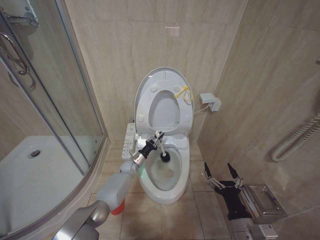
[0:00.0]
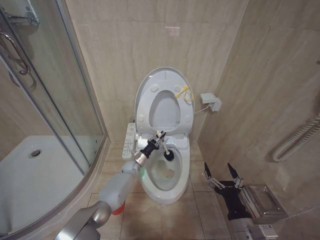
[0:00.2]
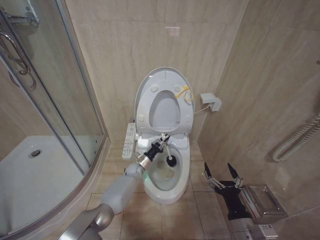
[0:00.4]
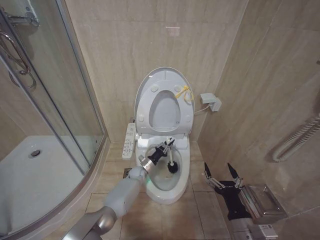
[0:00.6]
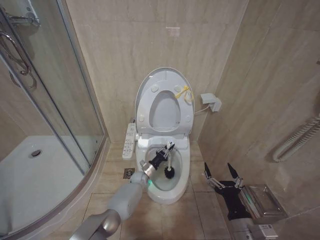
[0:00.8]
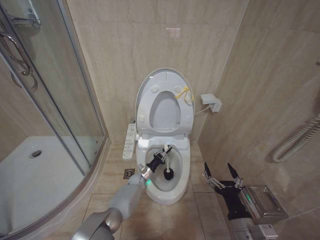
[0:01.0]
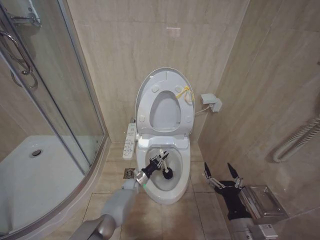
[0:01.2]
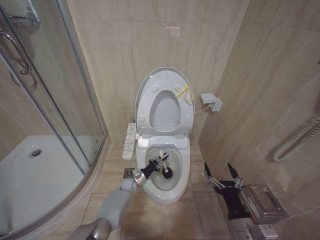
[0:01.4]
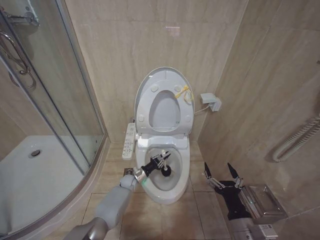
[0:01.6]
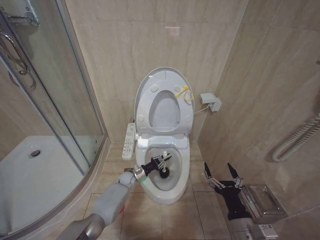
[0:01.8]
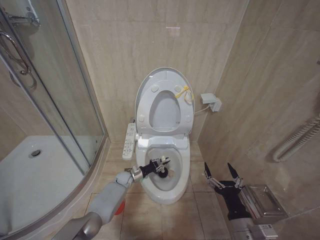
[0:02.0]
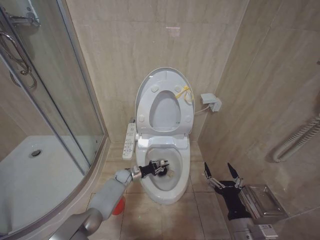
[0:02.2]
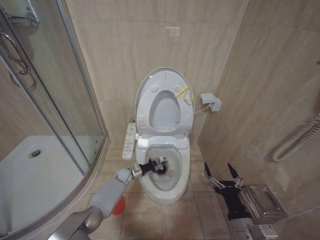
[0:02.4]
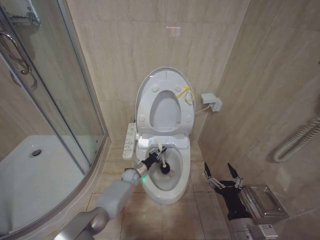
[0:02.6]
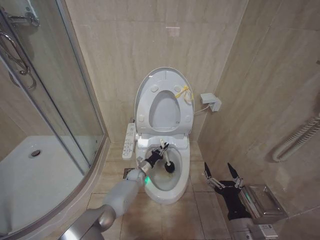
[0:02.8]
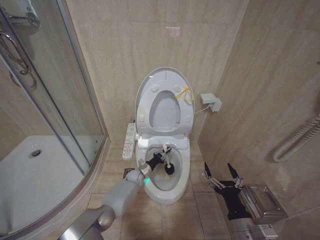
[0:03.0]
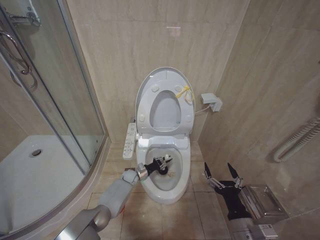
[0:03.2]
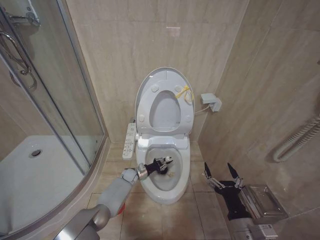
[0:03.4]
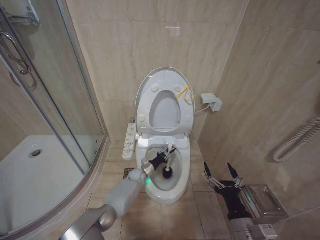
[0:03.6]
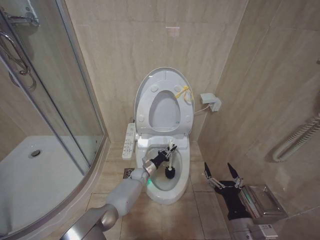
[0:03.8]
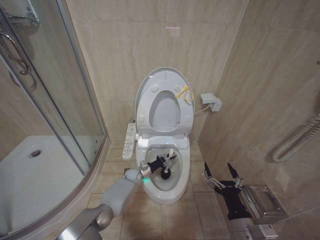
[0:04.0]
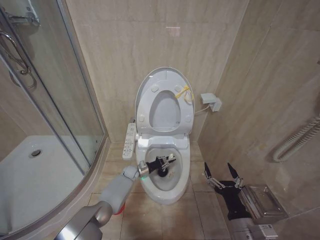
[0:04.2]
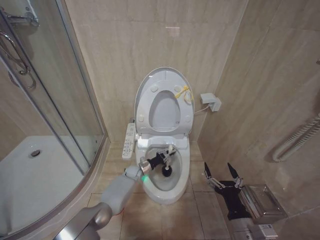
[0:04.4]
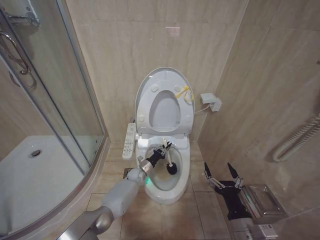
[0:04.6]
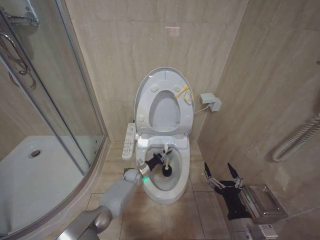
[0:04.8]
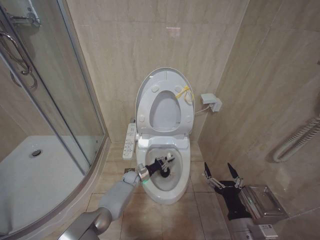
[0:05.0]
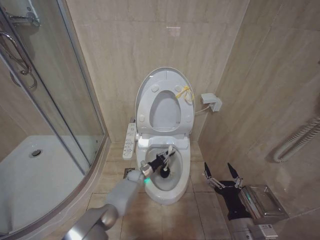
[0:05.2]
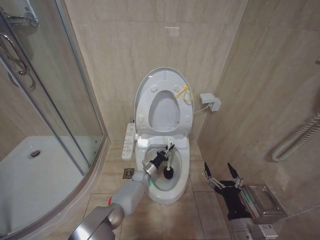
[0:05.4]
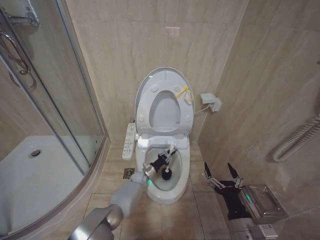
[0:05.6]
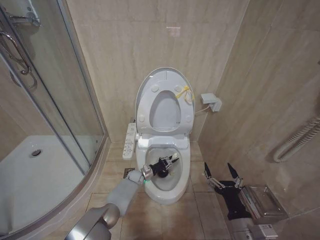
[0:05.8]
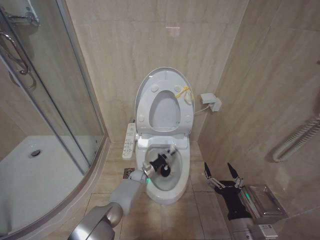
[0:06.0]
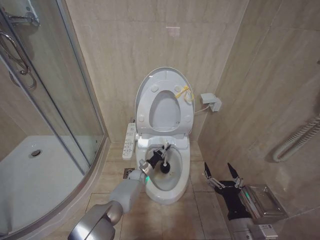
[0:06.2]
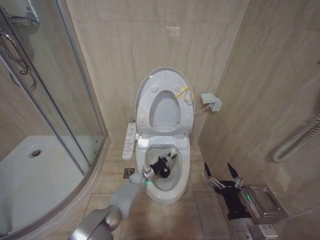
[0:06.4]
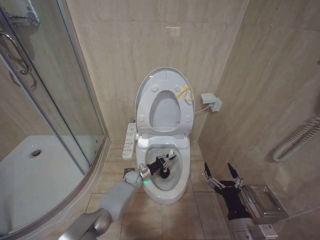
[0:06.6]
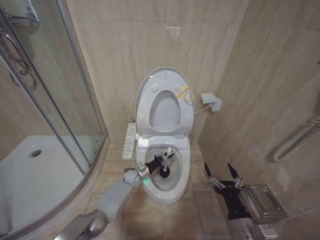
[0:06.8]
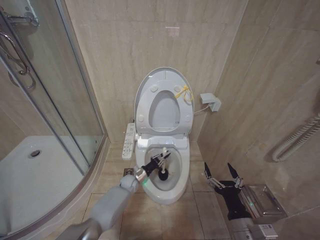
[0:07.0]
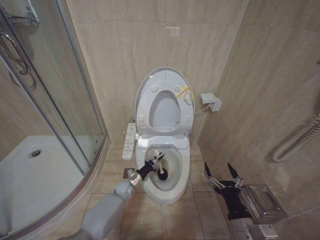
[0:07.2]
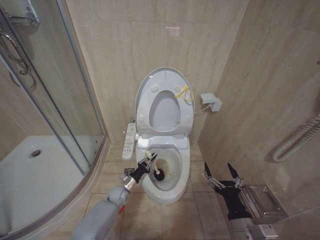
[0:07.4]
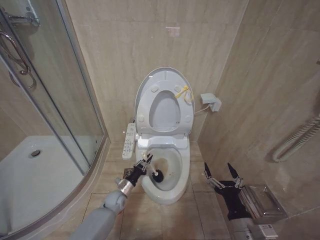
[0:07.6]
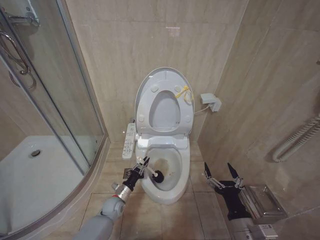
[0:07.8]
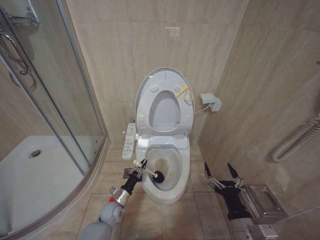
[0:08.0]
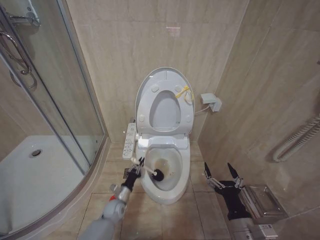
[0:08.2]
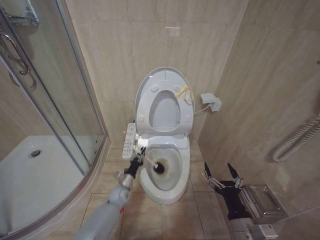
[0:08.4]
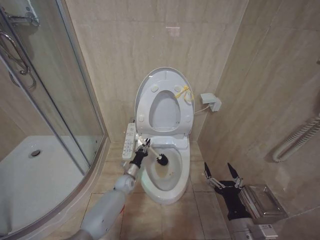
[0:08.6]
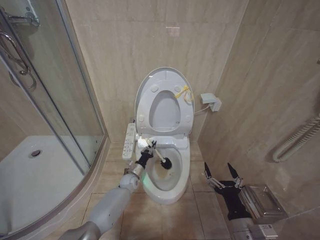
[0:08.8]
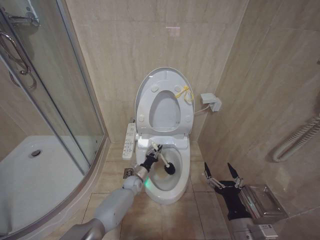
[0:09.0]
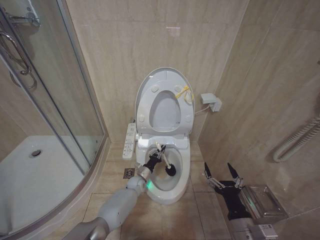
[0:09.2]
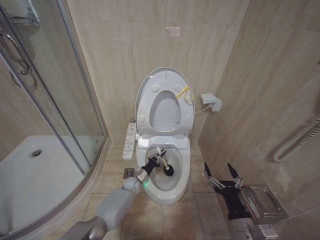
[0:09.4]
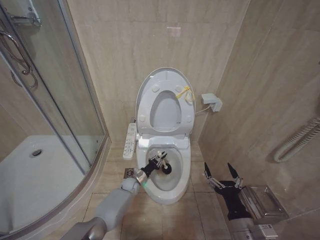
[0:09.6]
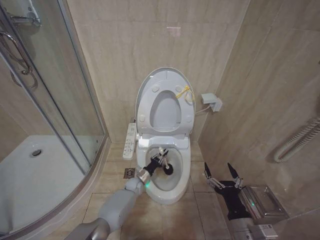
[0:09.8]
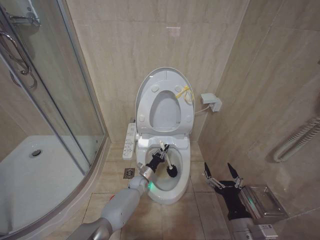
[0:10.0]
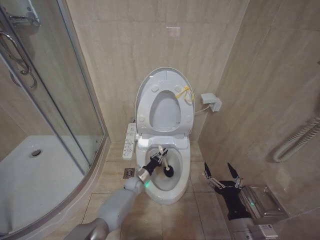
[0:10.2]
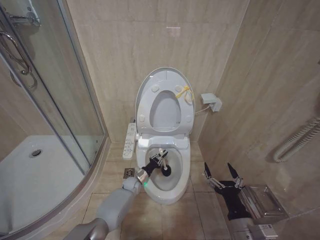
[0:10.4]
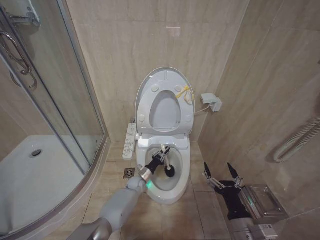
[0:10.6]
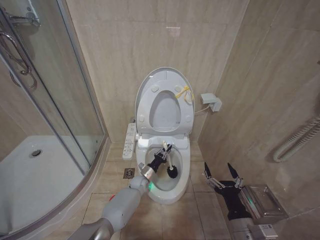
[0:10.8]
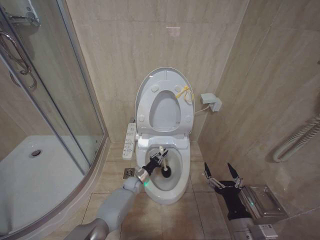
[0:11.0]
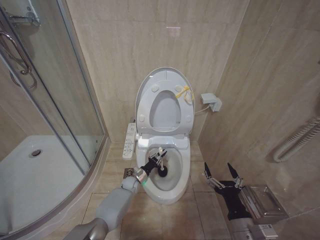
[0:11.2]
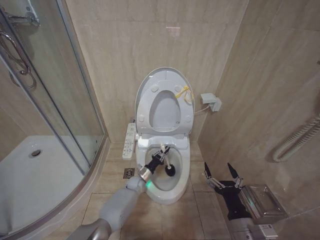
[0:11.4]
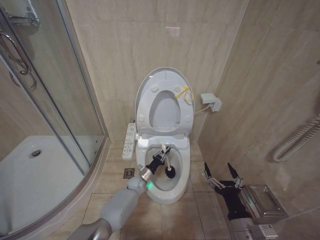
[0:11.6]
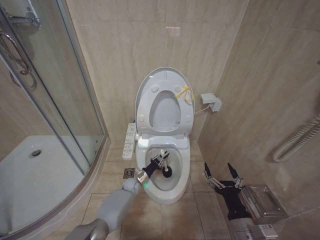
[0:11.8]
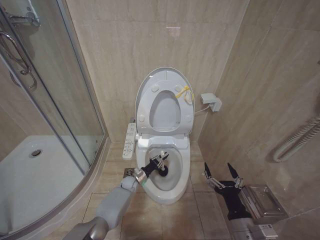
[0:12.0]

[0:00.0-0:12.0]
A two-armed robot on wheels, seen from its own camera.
Task of the whole recording: Open the toilet lid, clean the toilet bowl with a toilet brush, close the toilet lid, and flush.
0:00.0 to 0:01.6: The left gripper shifts roughly 5 cm downward.
0:01.6 to 0:03.0: The left gripper moves approximately 5 cm.
0:03.0 to 0:04.4: The left gripper swings left and right, some 5 cm each way, with 2 reversals.
0:06.0 to 0:07.6: The left gripper shifts about 15 cm backward and to the left.
0:07.6 to 0:09.0: The left gripper moves to the right and forward, roughly 10 cm.

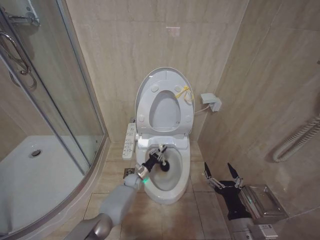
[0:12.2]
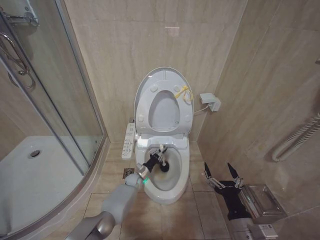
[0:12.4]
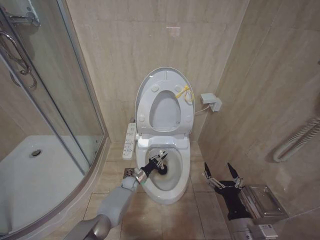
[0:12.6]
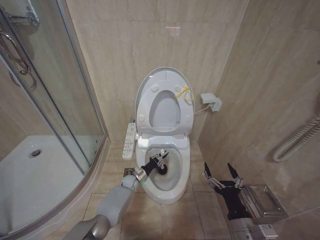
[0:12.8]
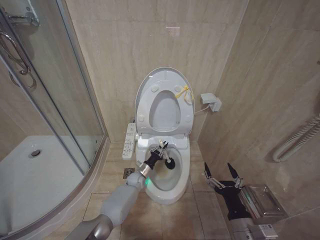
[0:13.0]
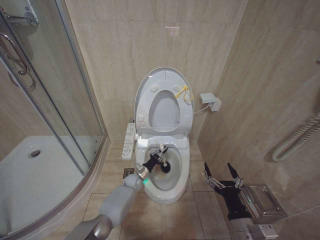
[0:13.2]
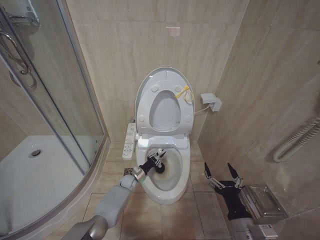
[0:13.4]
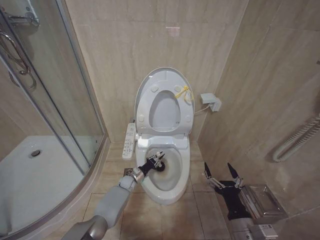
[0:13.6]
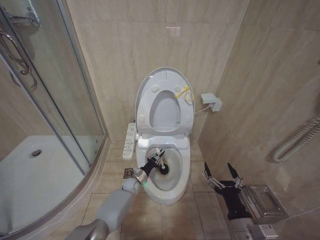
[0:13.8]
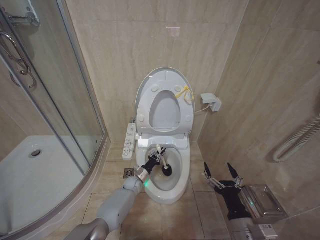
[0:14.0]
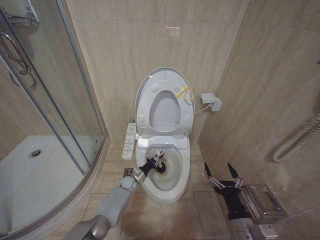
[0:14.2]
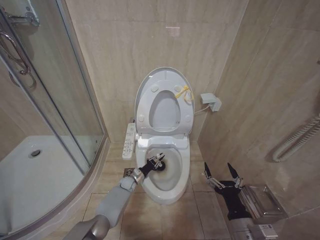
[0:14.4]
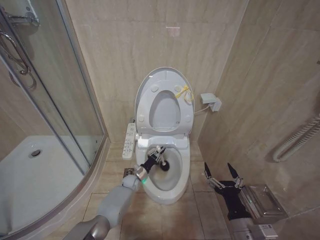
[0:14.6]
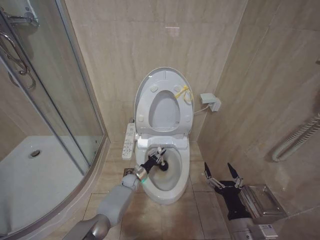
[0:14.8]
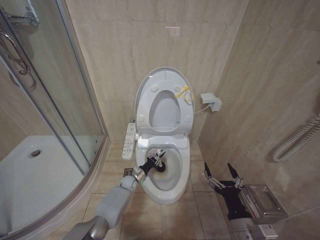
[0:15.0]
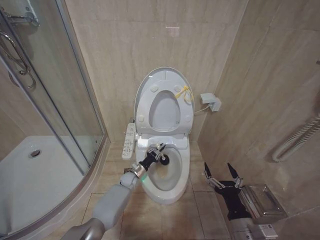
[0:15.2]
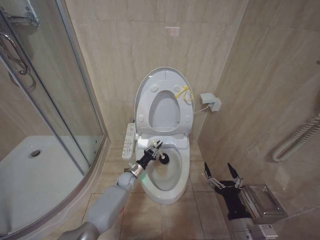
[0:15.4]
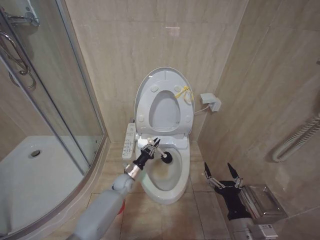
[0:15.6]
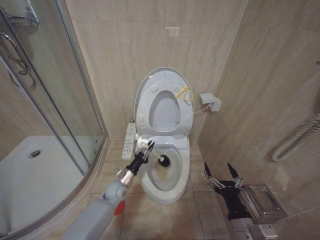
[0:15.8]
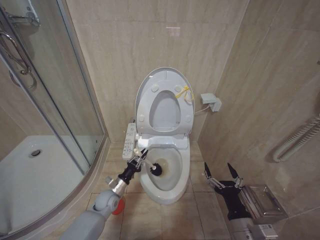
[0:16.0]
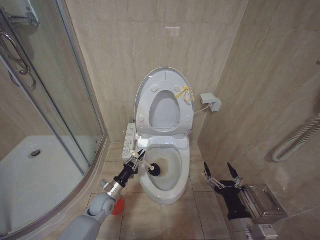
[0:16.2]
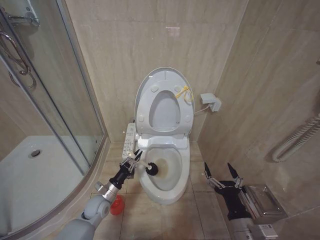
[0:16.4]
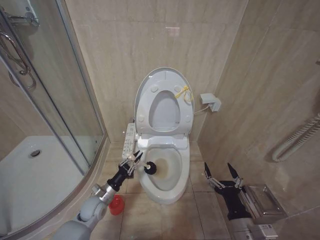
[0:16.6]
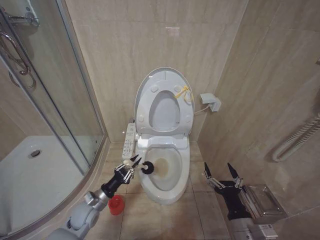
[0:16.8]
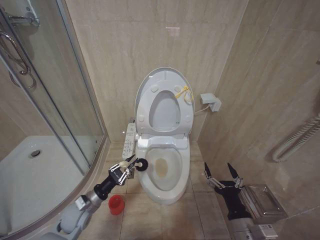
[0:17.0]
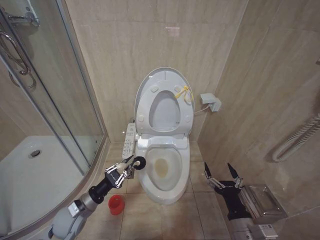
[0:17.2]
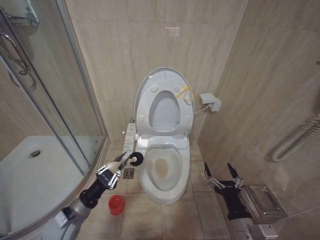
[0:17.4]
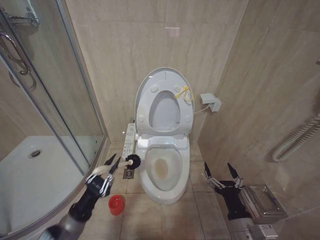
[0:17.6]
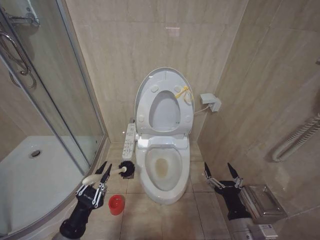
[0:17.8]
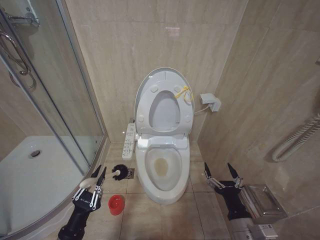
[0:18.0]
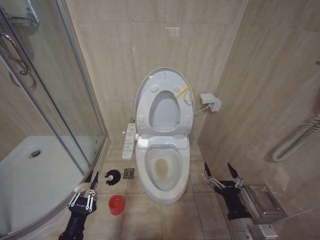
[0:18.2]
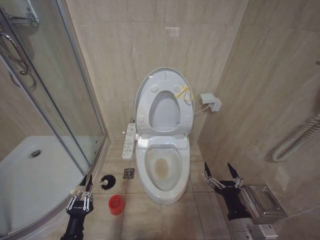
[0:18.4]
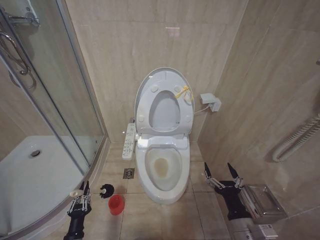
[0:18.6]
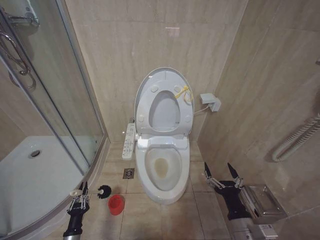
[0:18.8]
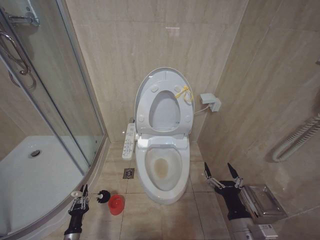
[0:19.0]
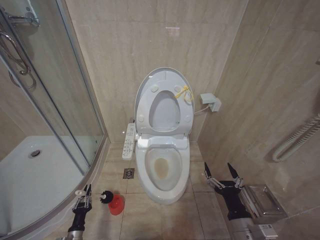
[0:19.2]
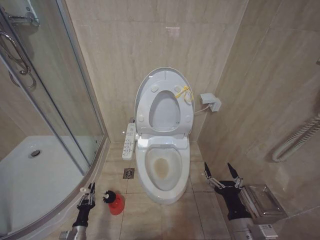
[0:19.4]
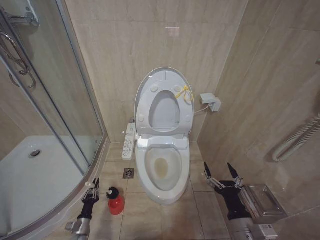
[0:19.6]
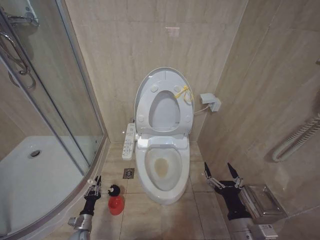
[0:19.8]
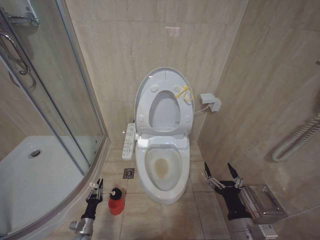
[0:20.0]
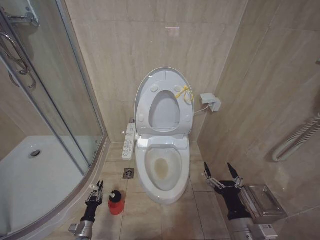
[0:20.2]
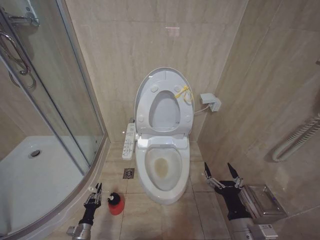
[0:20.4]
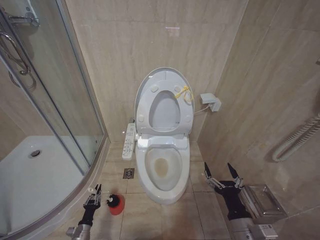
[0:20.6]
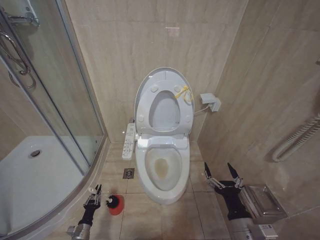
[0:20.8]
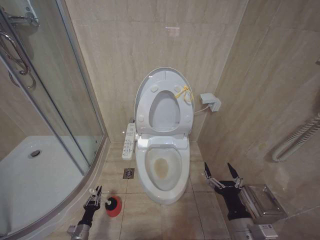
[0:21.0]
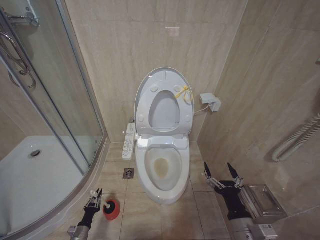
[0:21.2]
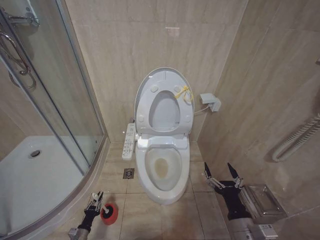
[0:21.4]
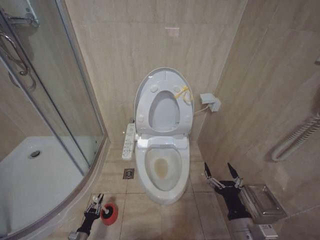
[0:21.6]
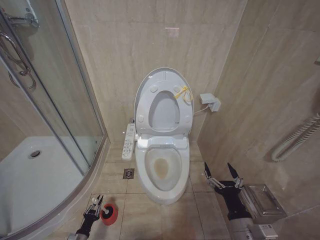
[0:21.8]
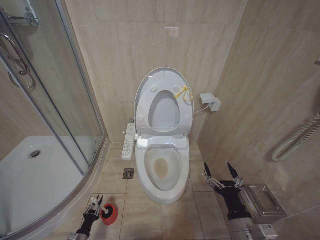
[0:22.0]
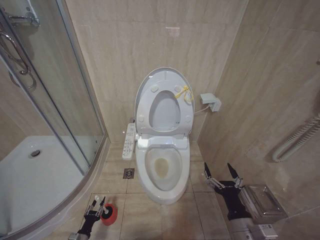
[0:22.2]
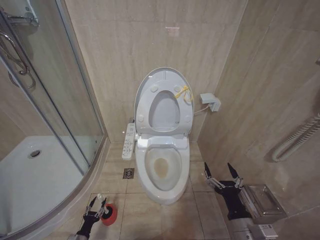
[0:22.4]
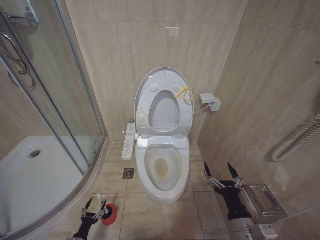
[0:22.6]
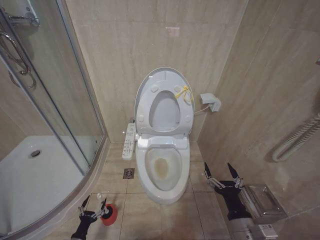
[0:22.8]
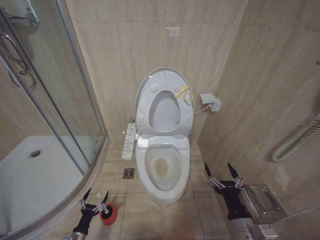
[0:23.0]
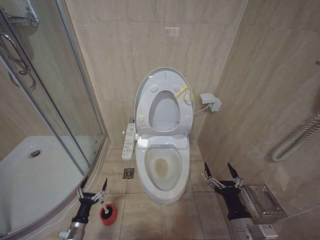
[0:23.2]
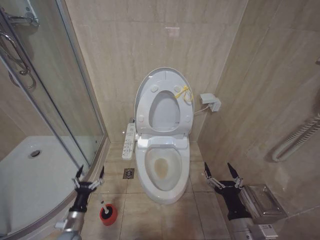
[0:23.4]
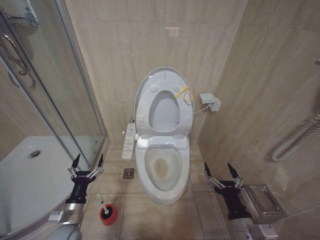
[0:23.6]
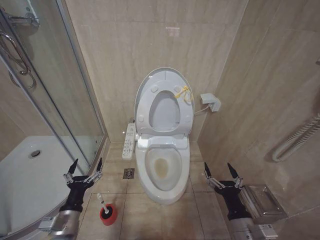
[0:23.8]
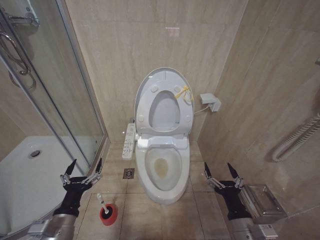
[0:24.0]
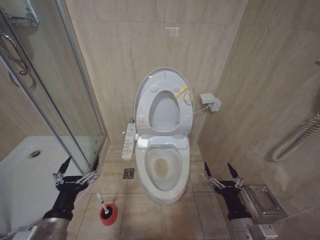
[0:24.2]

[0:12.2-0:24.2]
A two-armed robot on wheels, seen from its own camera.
Task of the whole recording: Open the toilet lid, clean the toilet bowl with a toilet brush, close the toilet lid, and flush.
0:12.2 to 0:15.2: There are only small adjustments of the grippers.
0:15.2 to 0:16.6: The left gripper is displaced backward, to the left and upward by roughly 20 cm.
0:16.6 to 0:18.2: The left gripper is displaced backward by approximately 20 cm.
0:18.2 to 0:19.8: The left gripper goes some 25 cm downward and forward.
0:19.8 to 0:21.2: The grippers move only a little.
0:21.2 to 0:22.6: The left gripper opens.
0:22.6 to 0:24.2: The left gripper travels upward by approximately 40 cm, and opens up.
